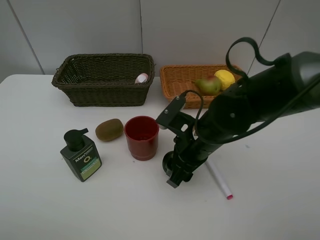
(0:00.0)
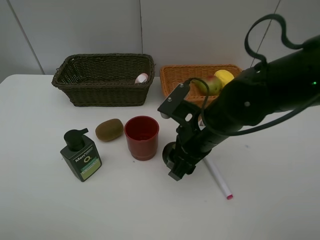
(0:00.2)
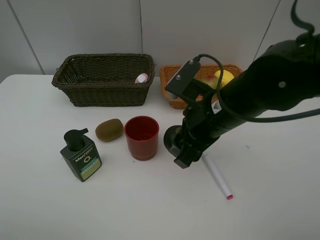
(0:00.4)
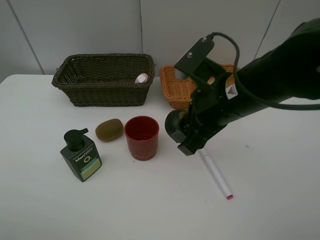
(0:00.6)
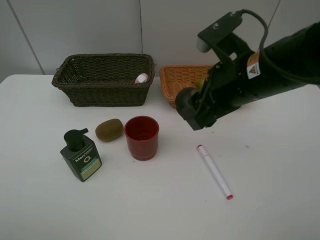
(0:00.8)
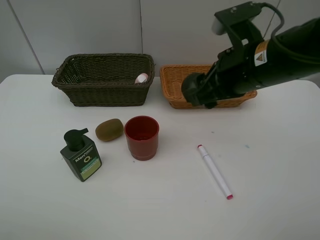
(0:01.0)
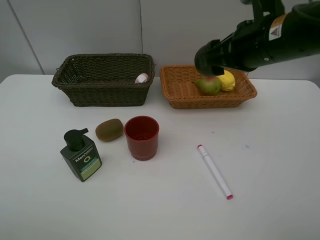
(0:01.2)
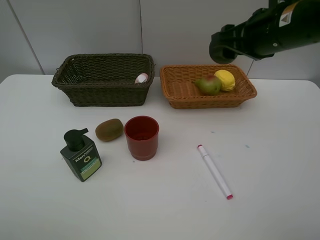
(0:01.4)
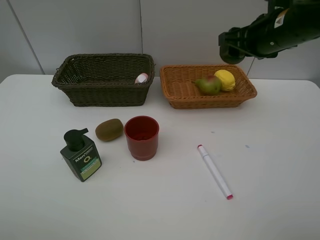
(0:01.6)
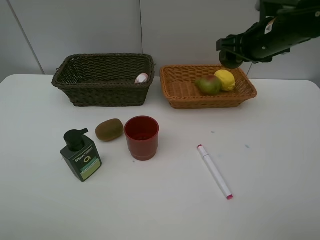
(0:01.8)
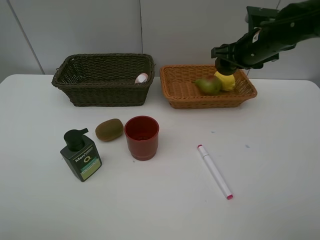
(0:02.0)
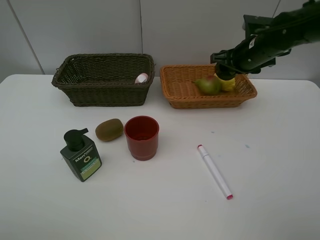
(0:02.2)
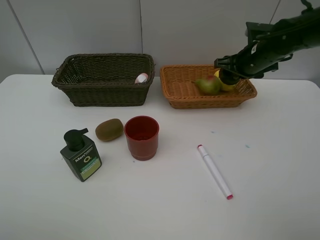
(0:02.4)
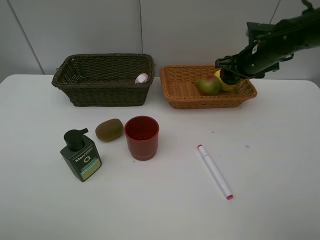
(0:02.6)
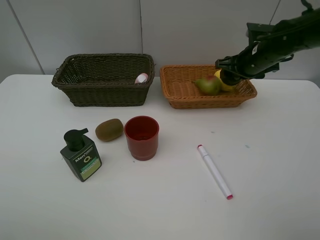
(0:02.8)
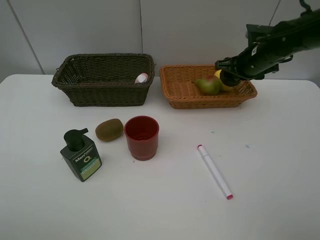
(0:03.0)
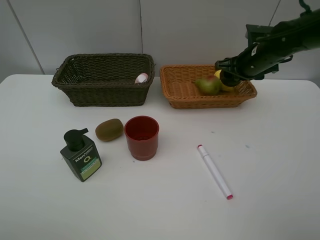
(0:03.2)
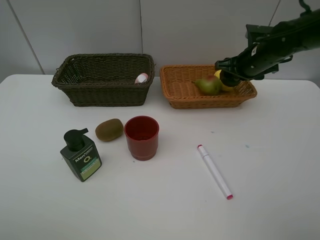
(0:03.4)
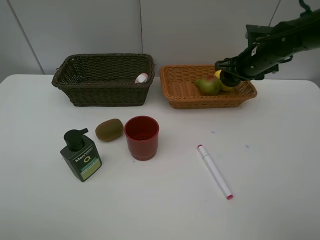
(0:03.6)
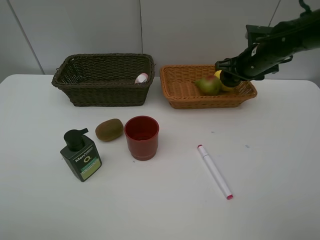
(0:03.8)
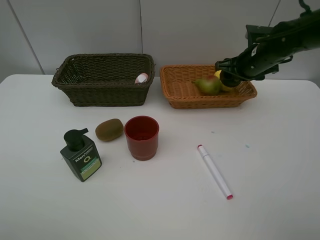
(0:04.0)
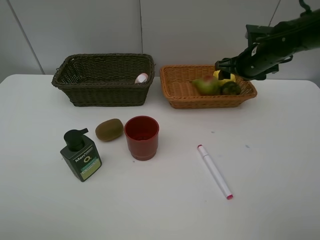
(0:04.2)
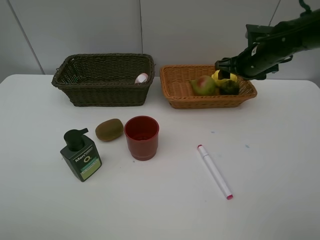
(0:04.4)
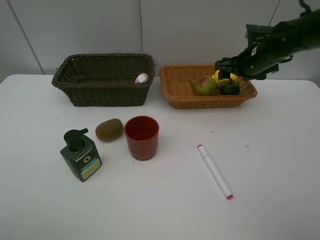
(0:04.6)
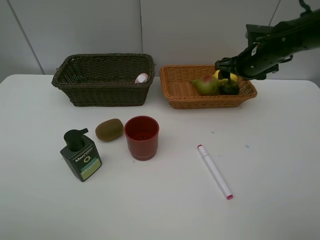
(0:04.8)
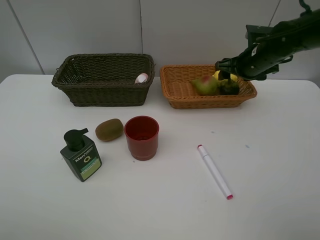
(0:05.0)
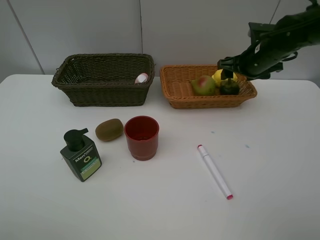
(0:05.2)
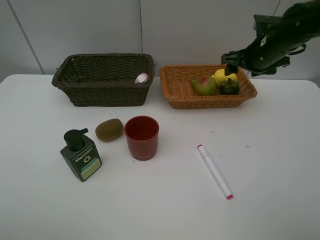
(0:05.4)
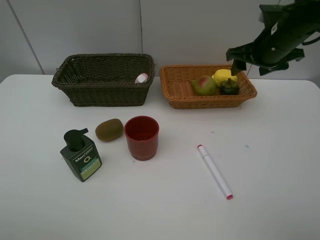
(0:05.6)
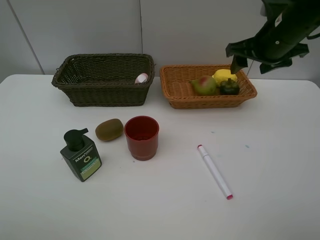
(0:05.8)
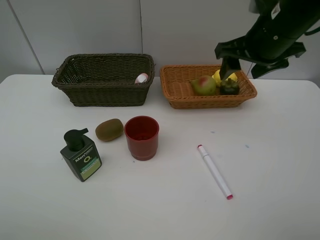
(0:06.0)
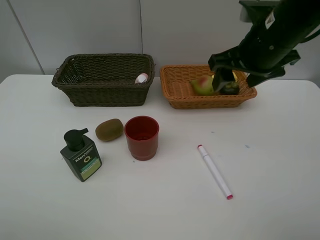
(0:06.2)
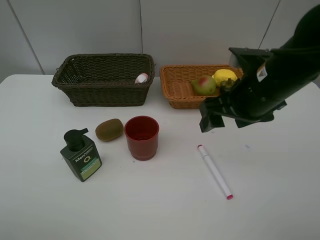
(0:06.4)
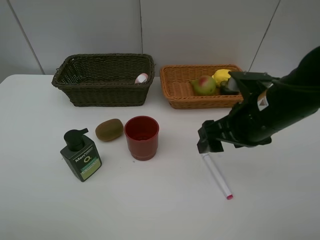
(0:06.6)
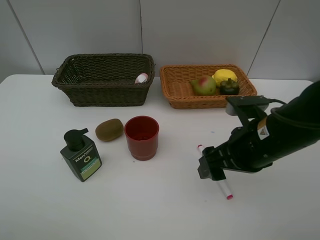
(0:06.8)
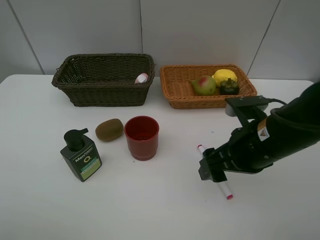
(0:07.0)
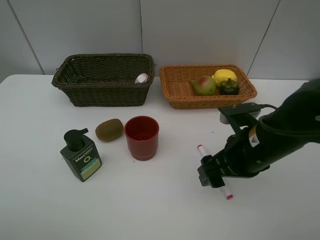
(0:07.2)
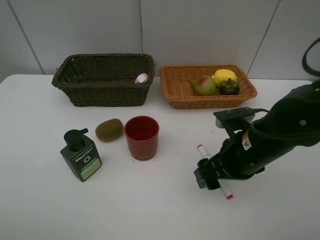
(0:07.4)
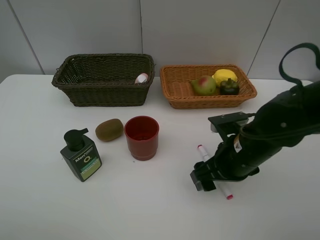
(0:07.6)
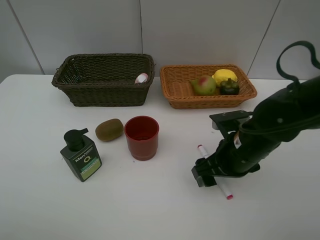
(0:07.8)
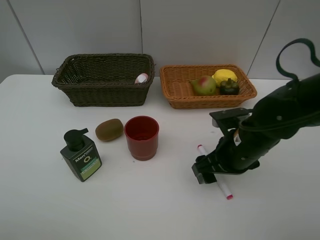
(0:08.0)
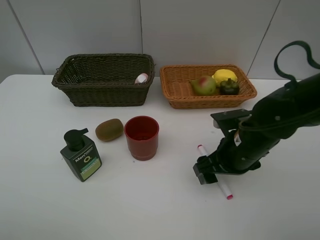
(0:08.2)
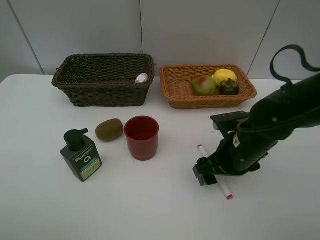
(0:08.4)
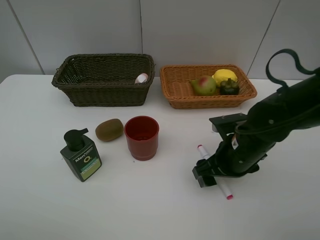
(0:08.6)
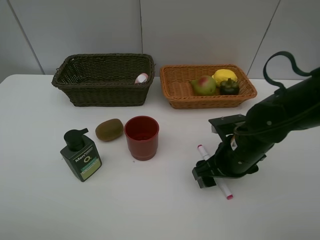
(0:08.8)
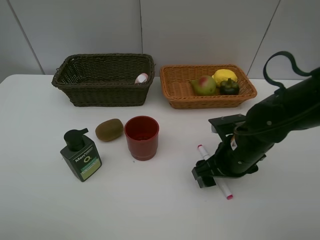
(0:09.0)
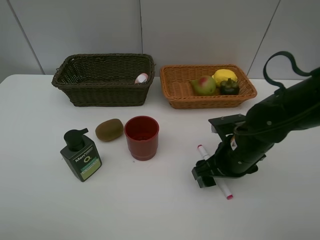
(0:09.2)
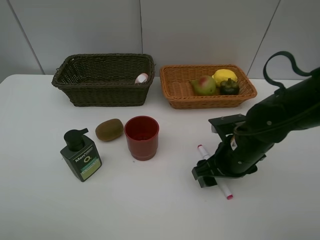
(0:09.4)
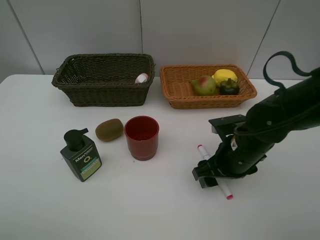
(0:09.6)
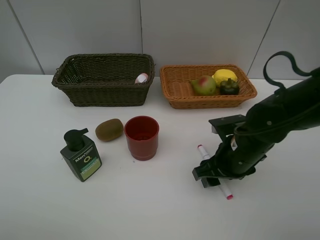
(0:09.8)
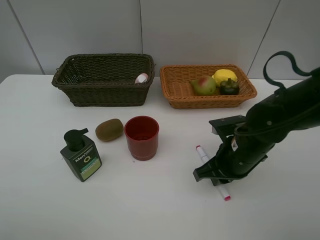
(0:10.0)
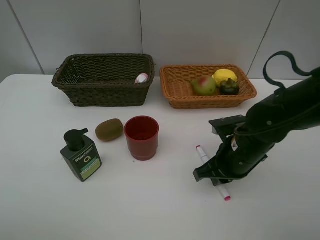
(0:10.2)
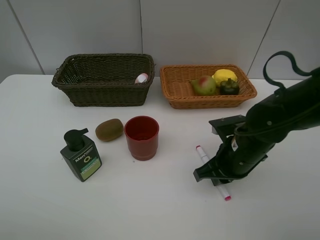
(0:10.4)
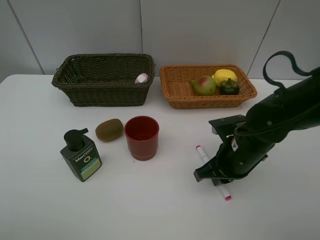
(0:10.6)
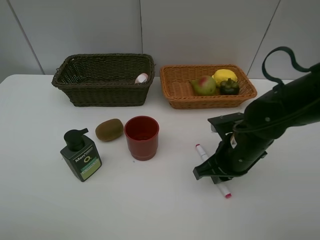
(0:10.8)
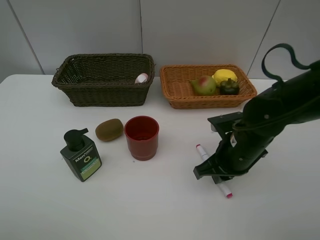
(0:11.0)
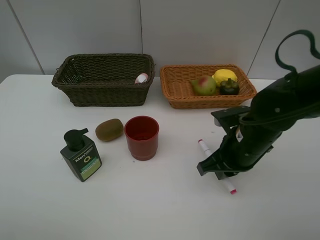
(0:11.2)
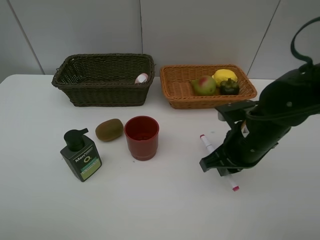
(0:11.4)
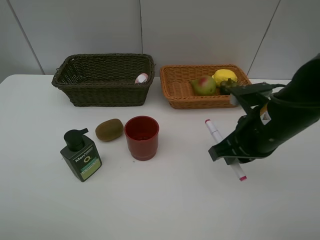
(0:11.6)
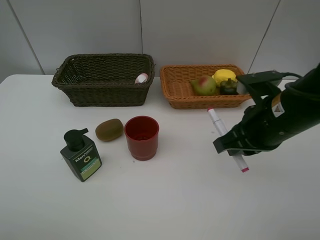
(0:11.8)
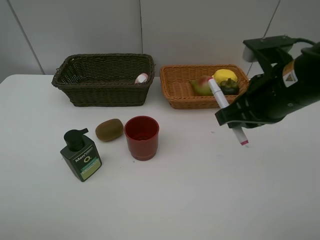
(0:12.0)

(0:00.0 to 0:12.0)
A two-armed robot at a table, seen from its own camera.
Task of the whole recording: Place multiple objects separately in different baskets.
Step, 0:00.4 - 0:05.2: Place the mangosteen in the light basket with right gripper.
Step, 0:05.4 - 0:11.0: Pick up the red marker with right gripper.
0:00.0 - 0:01.6: The right gripper moves upward, to the right and forward, some 20 cm.
0:01.6 - 0:03.0: The right gripper moves downward and forward, approximately 10 cm.
0:03.0 - 0:04.4: Both grippers stay about where they are.
0:04.4 - 0:06.0: The right gripper moves backward, upward and to the left, some 15 cm.
0:06.0 - 0:07.6: The right gripper heads downward and backward, covering some 20 cm.
0:07.6 - 0:09.0: The grippers move only a little.
0:09.0 - 0:10.4: The right gripper closes up.
0:10.4 - 0:12.0: The right gripper shifts about 15 cm upward.

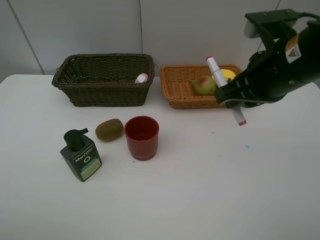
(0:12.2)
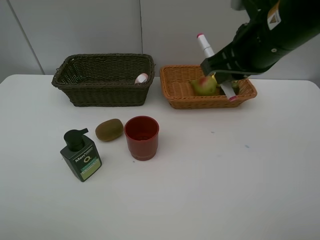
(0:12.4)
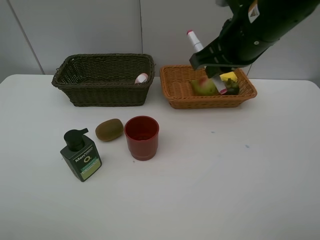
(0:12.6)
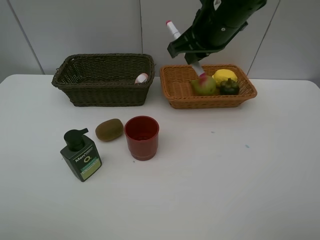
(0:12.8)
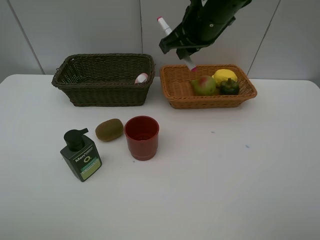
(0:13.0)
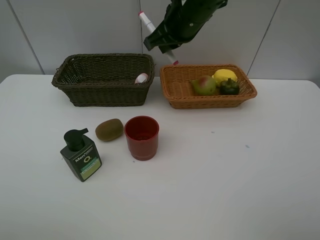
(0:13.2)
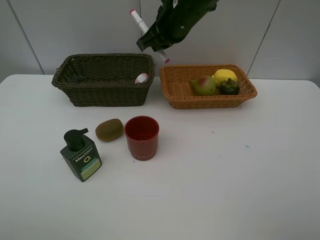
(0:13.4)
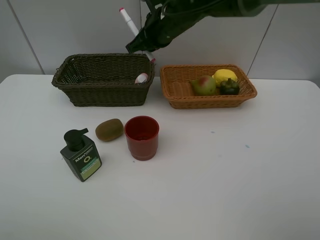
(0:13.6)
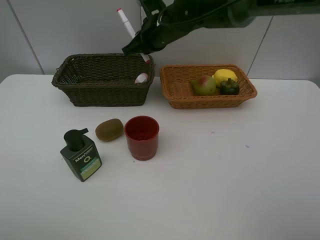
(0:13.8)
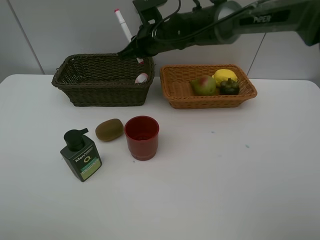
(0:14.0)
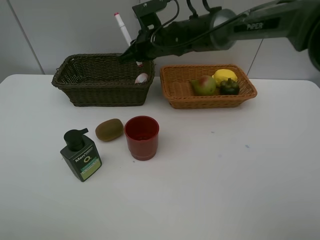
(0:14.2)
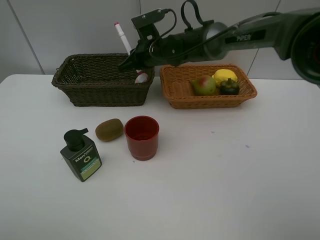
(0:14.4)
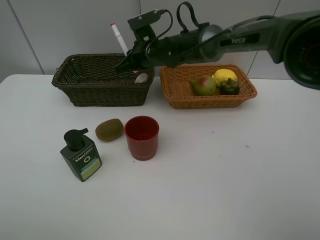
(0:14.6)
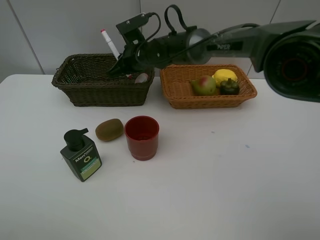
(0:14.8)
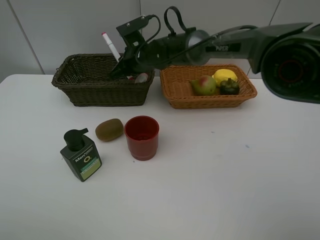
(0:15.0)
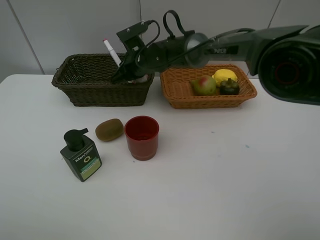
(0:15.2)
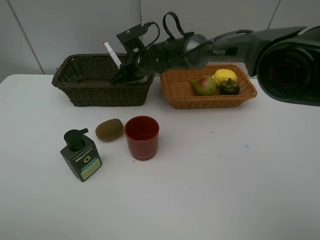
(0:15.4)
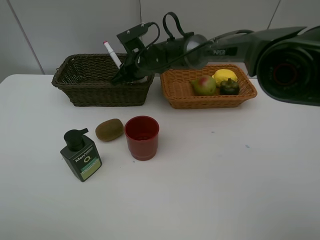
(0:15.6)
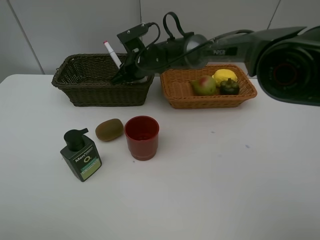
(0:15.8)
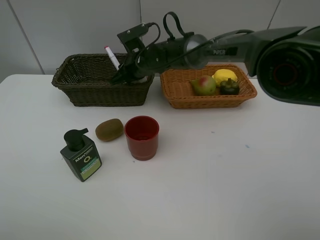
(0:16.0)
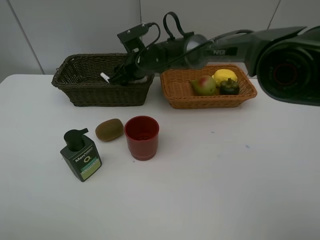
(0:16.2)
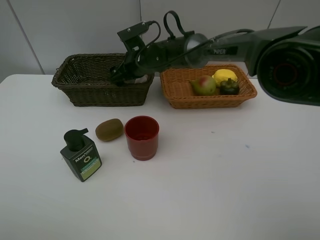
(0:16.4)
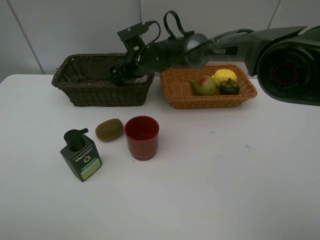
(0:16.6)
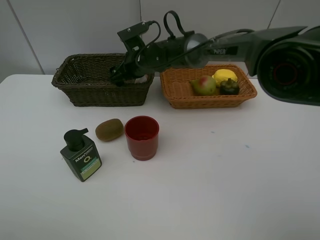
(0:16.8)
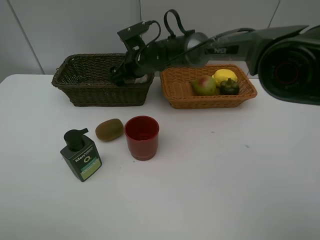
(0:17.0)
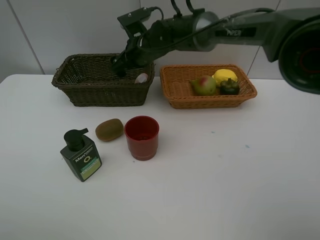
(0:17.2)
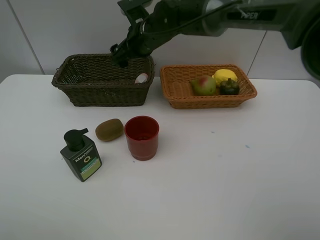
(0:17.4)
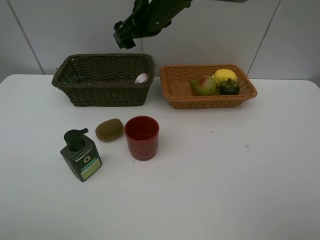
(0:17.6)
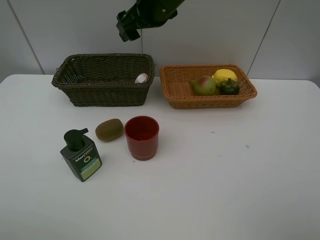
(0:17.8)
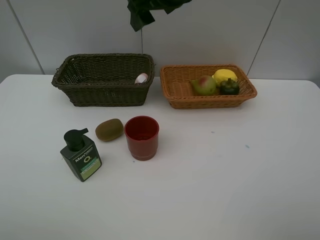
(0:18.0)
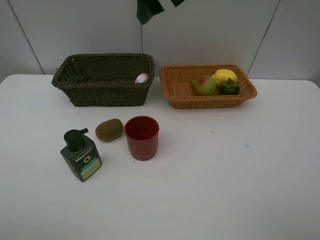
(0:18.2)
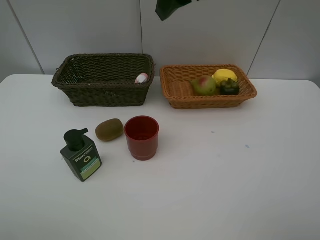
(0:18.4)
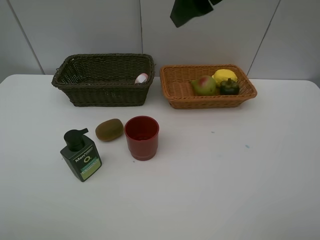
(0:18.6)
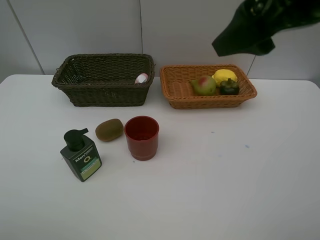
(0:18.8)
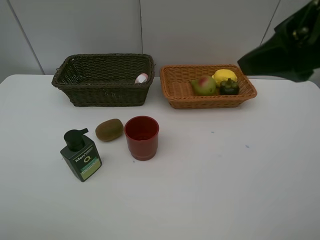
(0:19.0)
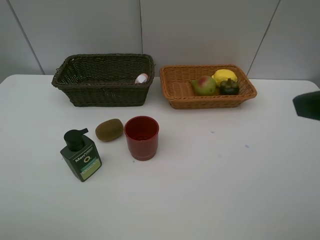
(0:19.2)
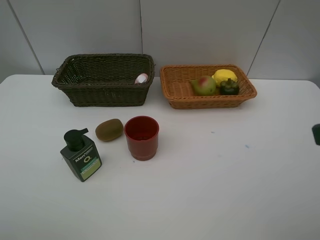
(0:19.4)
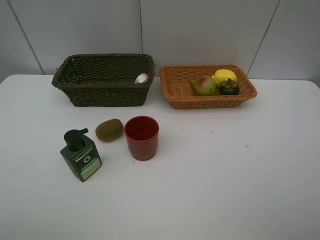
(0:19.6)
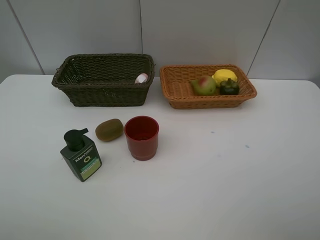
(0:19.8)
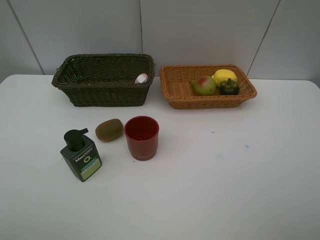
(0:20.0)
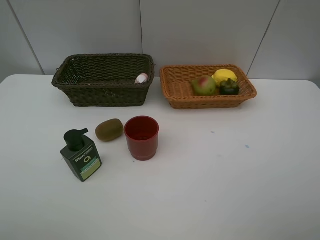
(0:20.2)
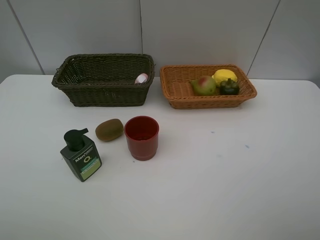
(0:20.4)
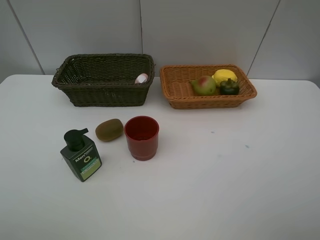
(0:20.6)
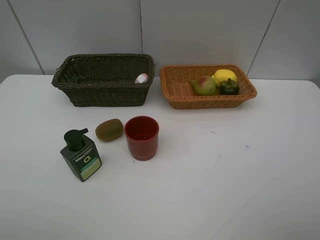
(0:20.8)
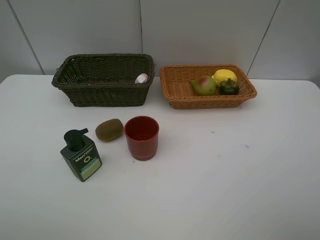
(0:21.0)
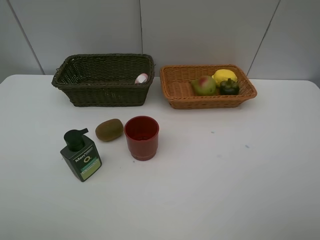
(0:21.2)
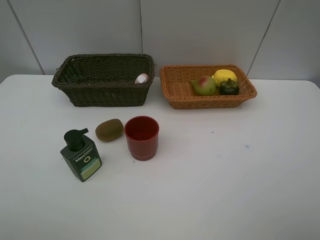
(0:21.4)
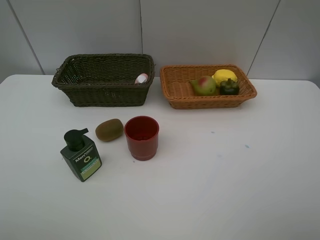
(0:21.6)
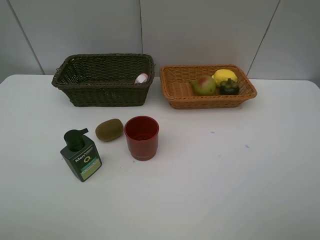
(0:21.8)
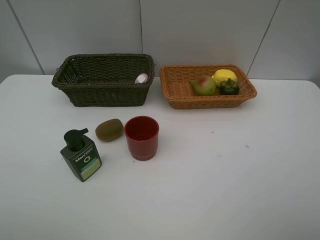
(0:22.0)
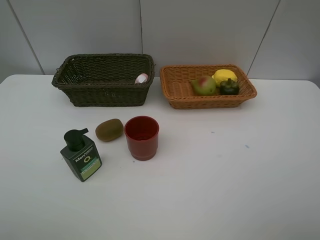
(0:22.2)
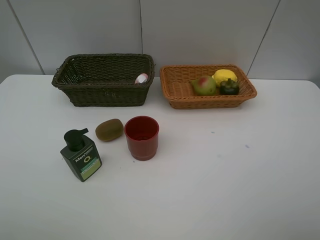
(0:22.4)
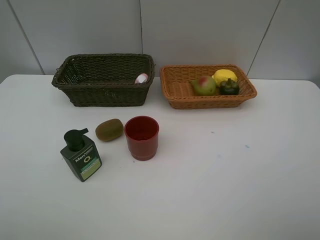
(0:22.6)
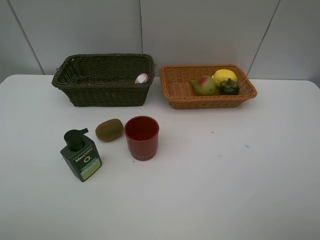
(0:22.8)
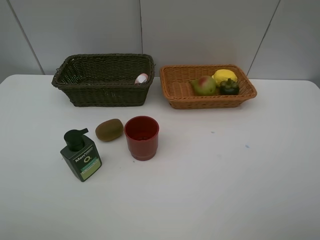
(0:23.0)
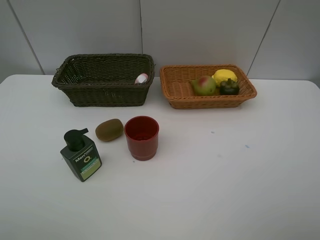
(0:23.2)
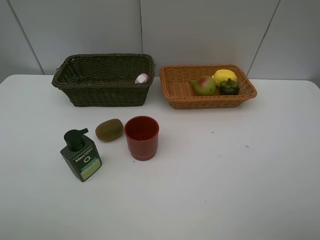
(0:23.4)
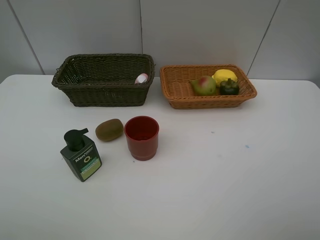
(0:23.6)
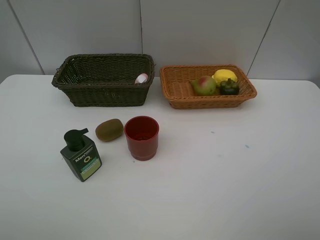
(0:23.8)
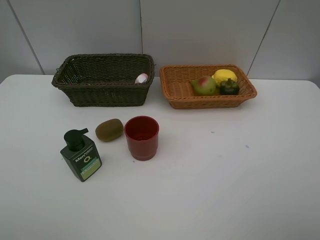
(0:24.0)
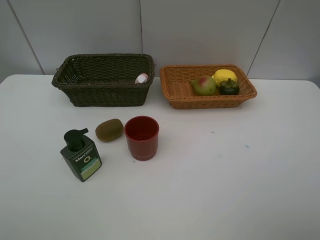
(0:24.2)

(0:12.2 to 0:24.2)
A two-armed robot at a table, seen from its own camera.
Task of the whole recording: Place multiple objects separately in different baskets.
Step, 0:12.2 - 0:17.2: Place the red marker in the dark basket with right gripper.
0:12.2 - 0:13.8: The right gripper moves forward and to the left, some 25 cm.
0:13.8 - 0:15.2: The right gripper travels downward by approximately 10 cm.
0:15.2 - 0:16.6: The right gripper opens.
0:16.6 - 0:18.2: The right gripper shifts roughly 25 cm upward and backward.
0:18.2 - 0:19.8: The right gripper goes roughly 40 cm backward and to the right.
